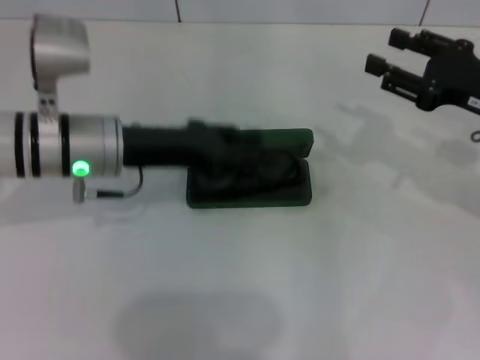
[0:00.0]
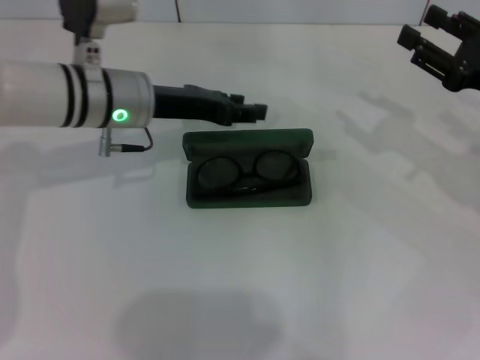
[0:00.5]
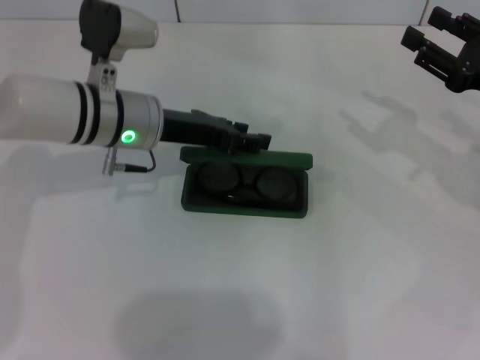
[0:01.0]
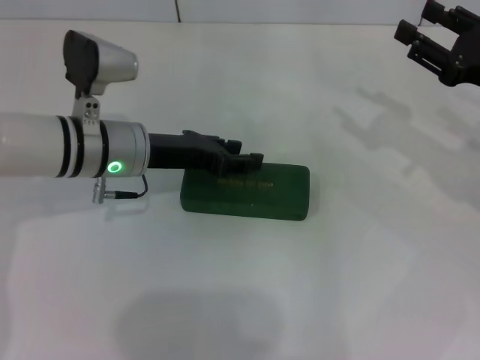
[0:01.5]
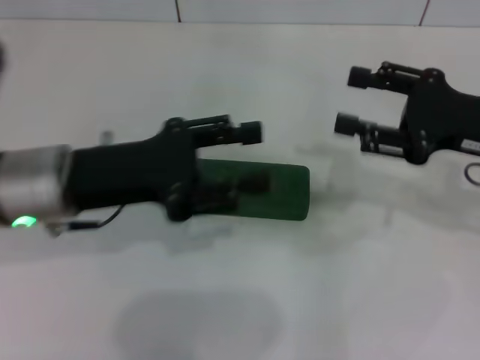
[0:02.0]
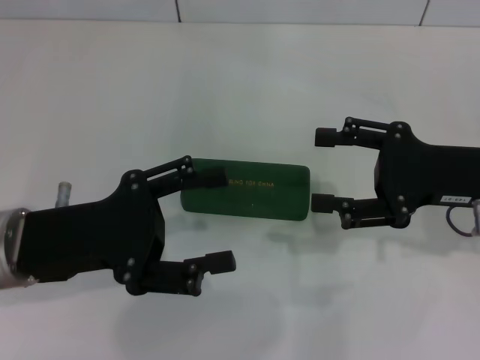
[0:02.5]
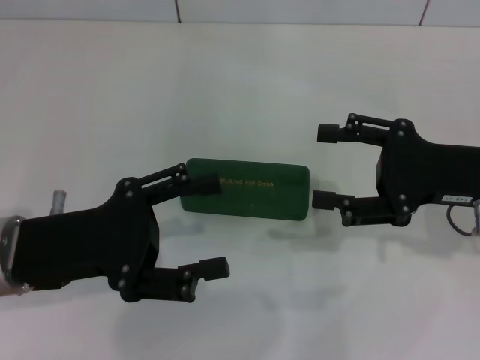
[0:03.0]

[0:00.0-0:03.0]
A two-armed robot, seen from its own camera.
0:01.5 to 0:03.0: The right gripper changes place by about 5 cm. The left gripper shifts approximately 15 cm backward and to the left, and opens up.
